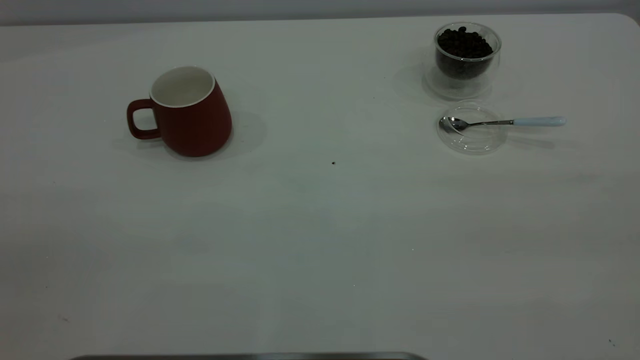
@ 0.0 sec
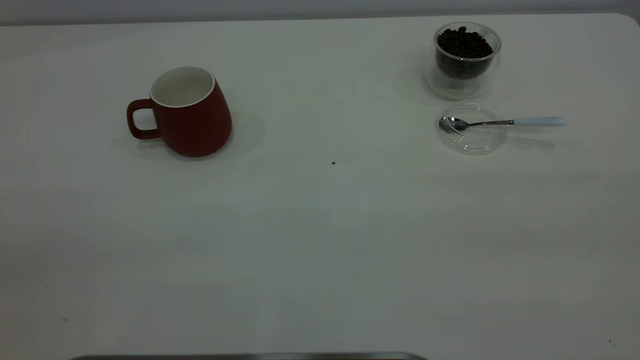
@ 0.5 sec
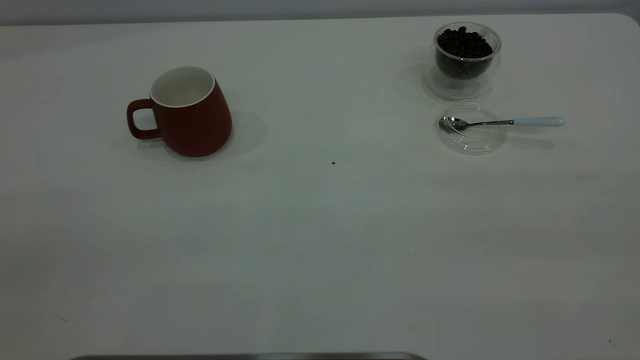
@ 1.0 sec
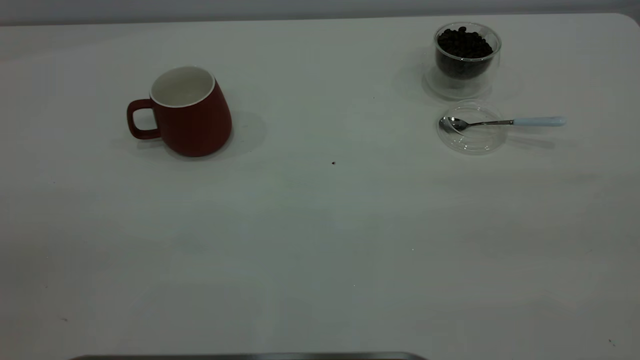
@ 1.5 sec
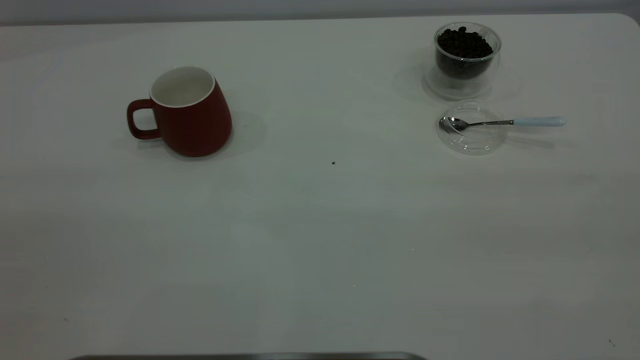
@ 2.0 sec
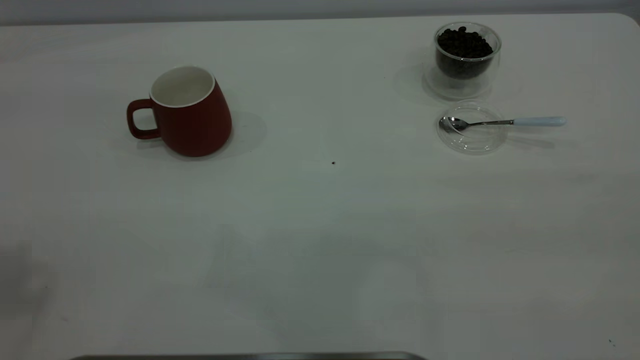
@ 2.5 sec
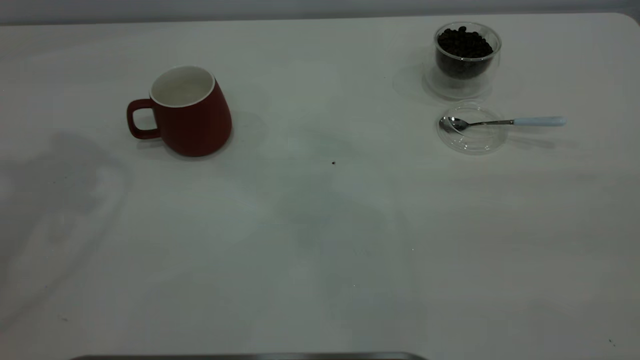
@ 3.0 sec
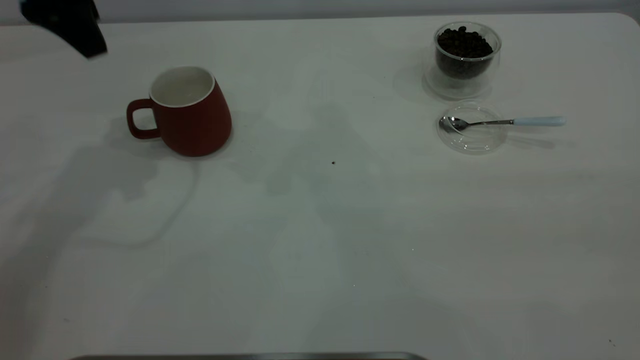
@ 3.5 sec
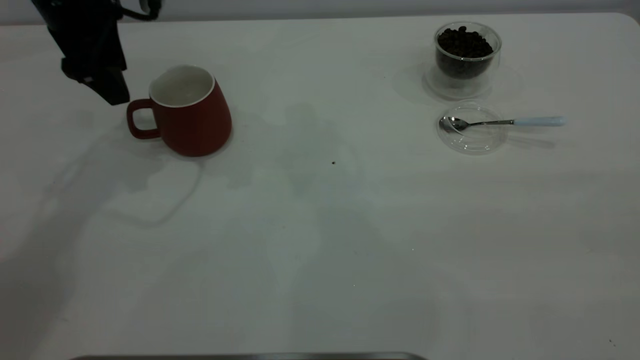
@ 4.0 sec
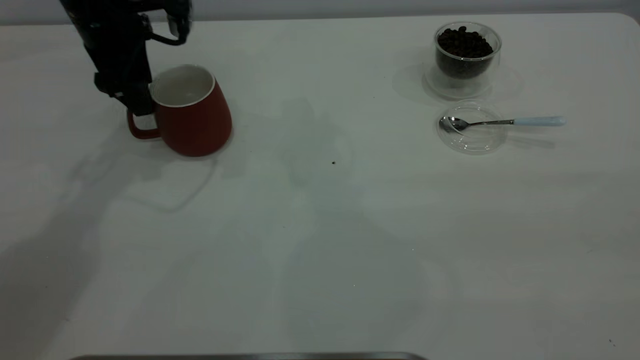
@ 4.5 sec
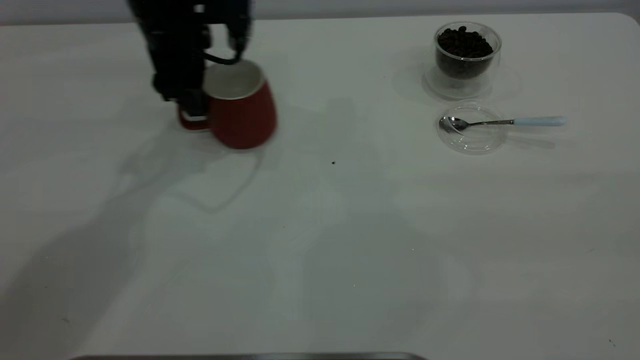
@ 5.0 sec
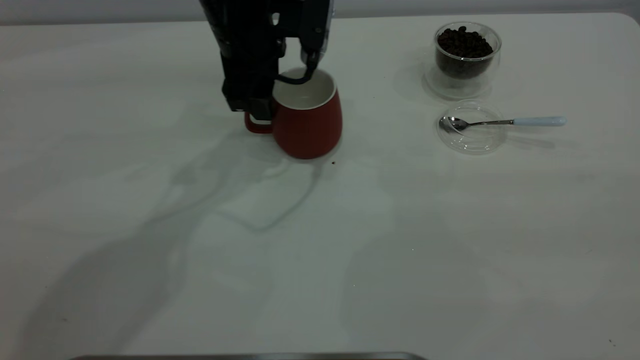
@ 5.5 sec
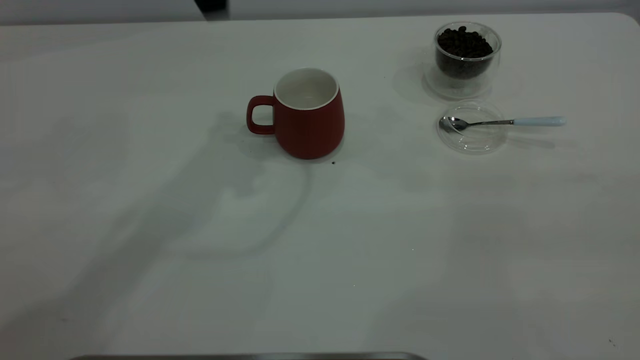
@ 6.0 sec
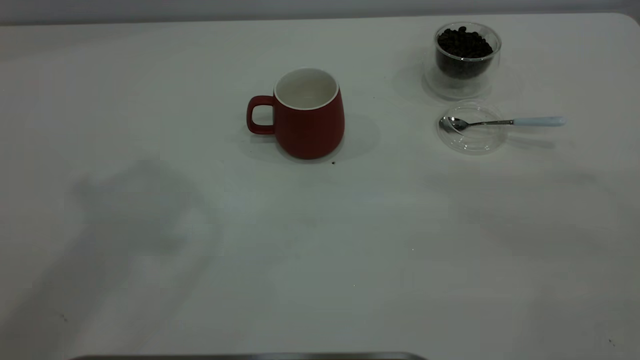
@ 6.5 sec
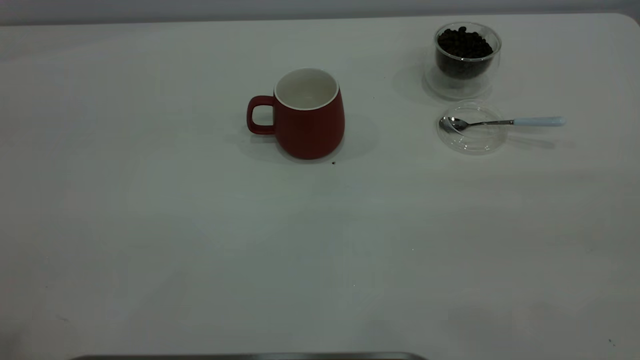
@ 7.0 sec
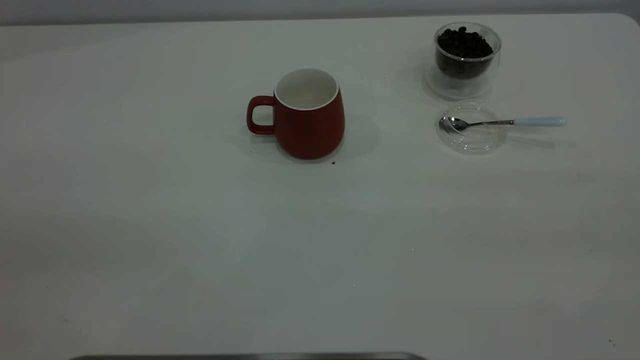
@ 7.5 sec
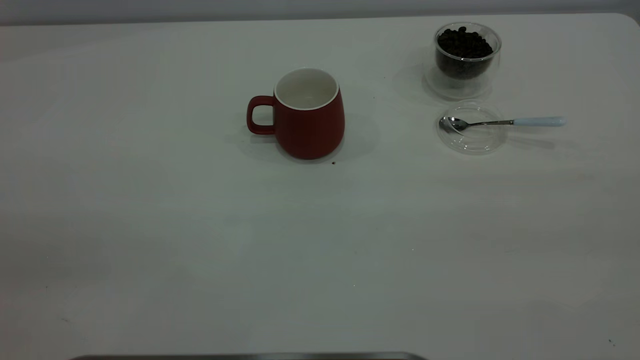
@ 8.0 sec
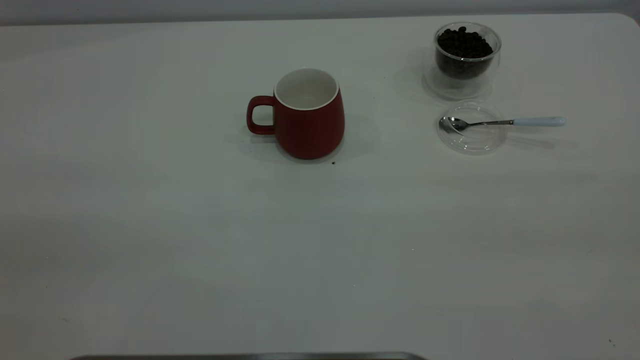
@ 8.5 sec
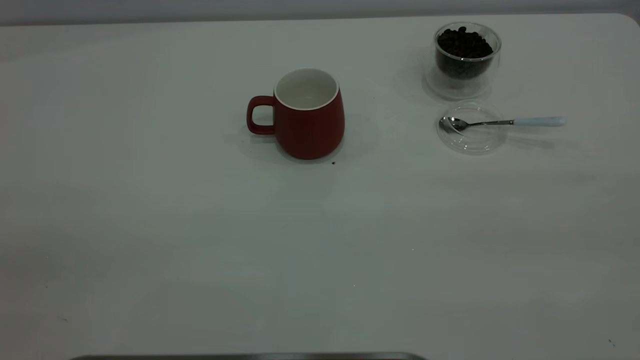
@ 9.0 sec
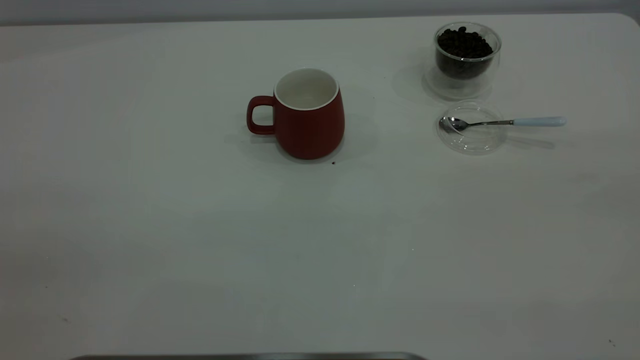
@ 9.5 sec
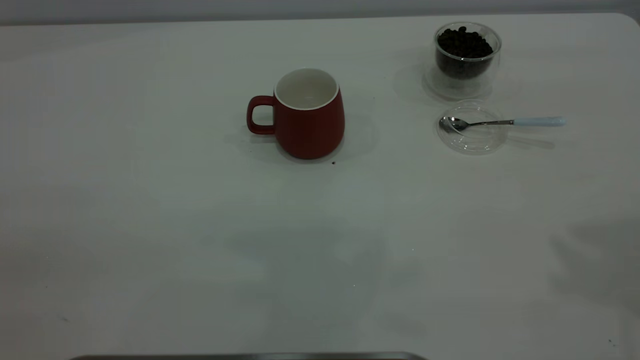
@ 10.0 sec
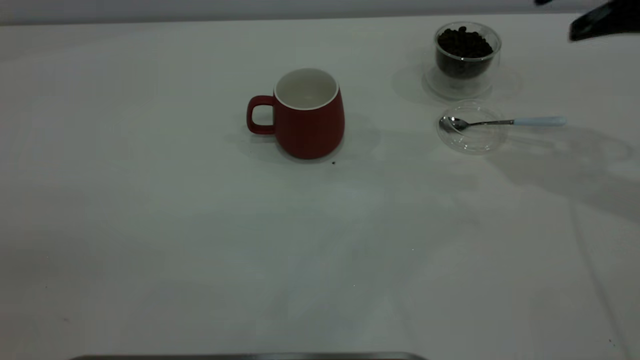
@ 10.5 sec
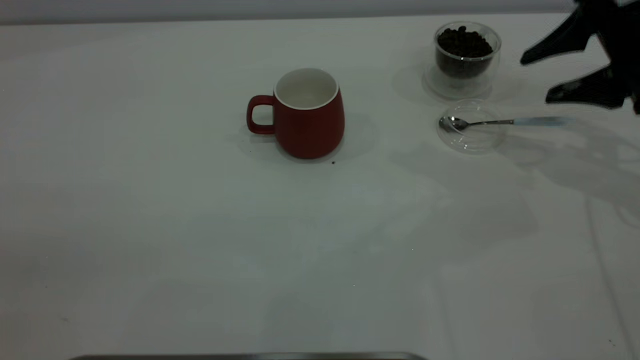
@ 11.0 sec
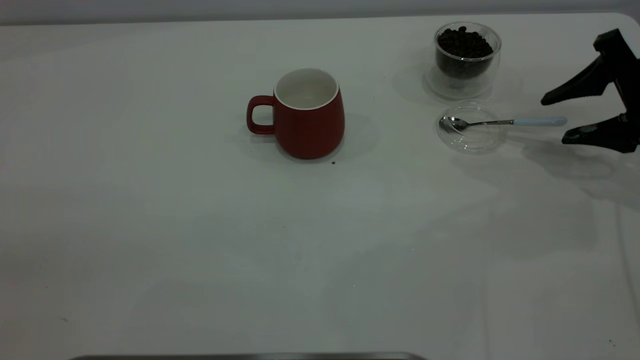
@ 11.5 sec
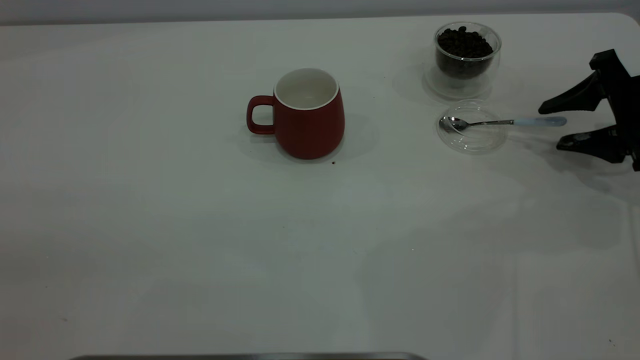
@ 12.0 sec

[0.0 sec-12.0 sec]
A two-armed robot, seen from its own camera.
Task of the whole recording: the left gripper place the red cup in the center of the table, the right gripper take the blue spoon from the cup lid and scoop out the coffee beans from the coffee cup and put them into the red cup, the right gripper put the spoon back into the cup lid.
Step, 0.0 sec to 5.5 sec: Move the cup to the center of view.
2.0 sec to 4.0 sec: The left gripper moves forward and downward, about 50 cm.
4.0 sec to 6.0 sec: The left gripper shifts some 20 cm upward and to the right.
10.0 sec to 12.0 sec: The right gripper heads downward and forward, covering roughly 35 cm.

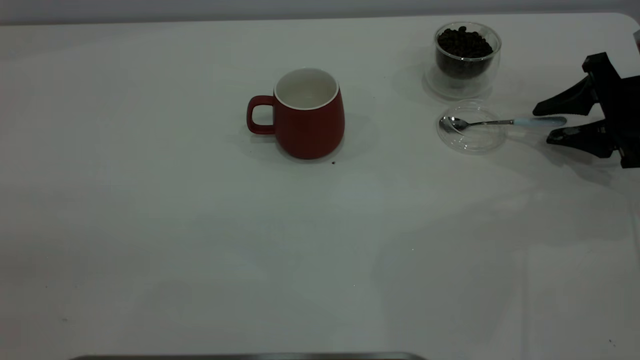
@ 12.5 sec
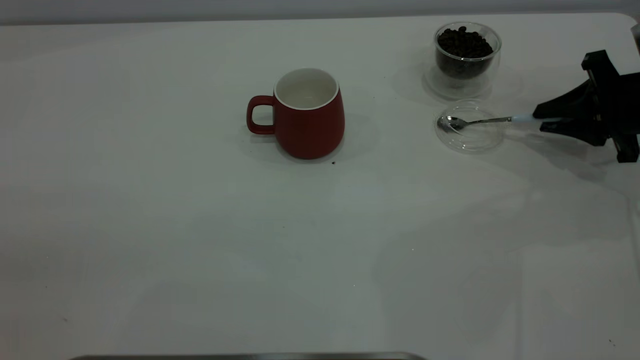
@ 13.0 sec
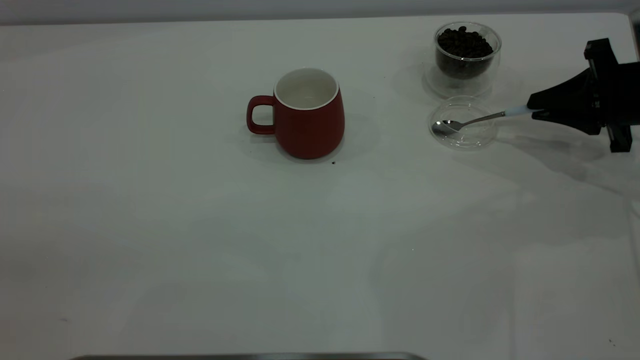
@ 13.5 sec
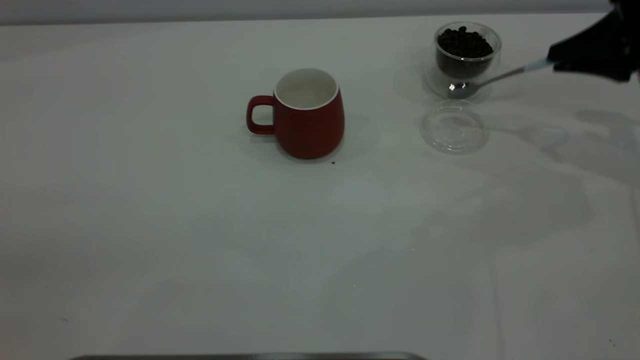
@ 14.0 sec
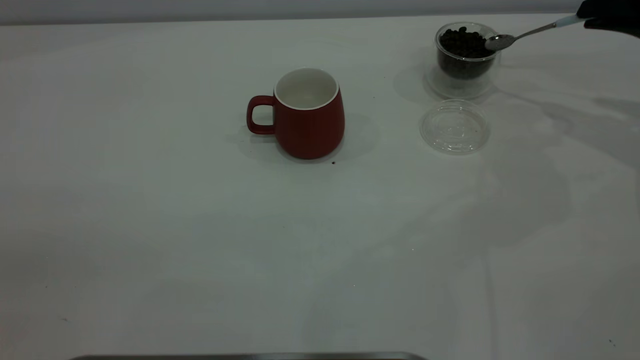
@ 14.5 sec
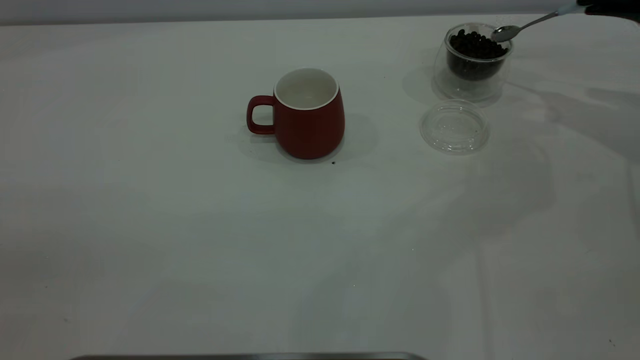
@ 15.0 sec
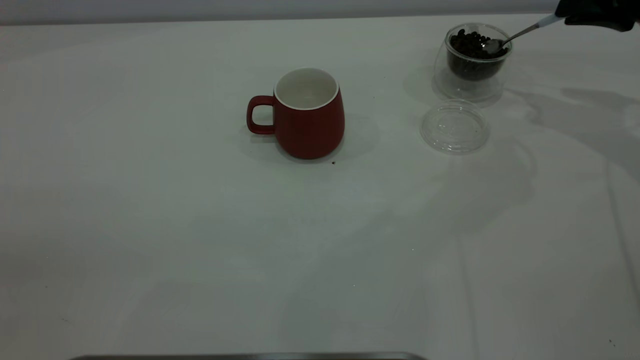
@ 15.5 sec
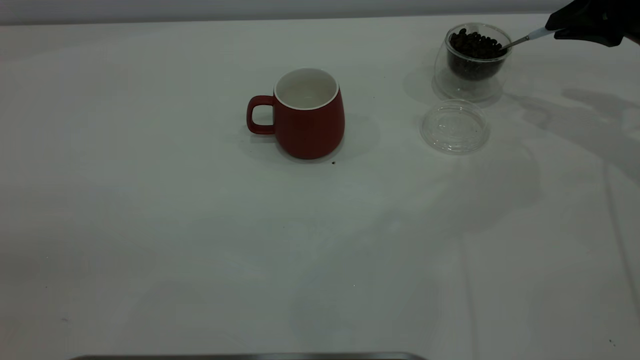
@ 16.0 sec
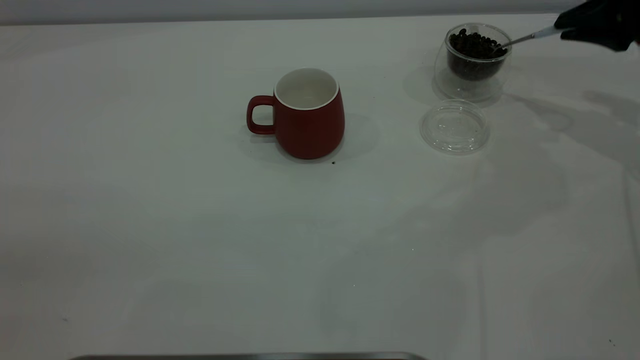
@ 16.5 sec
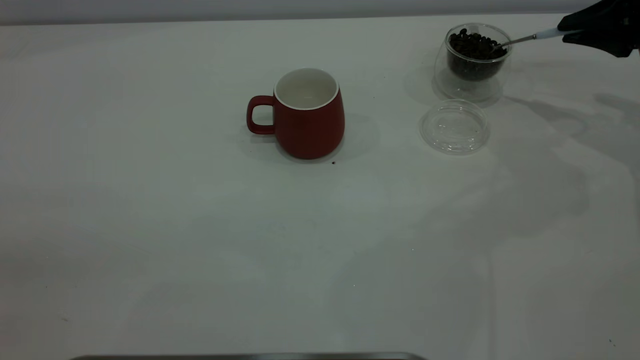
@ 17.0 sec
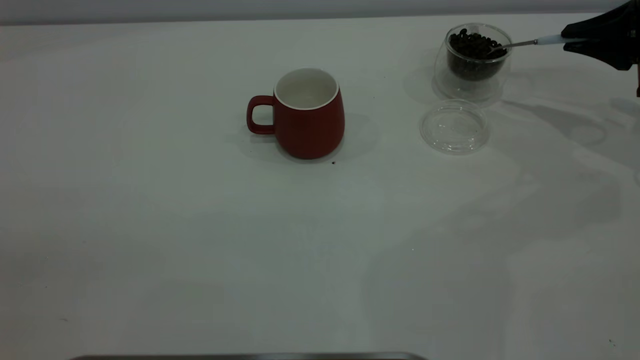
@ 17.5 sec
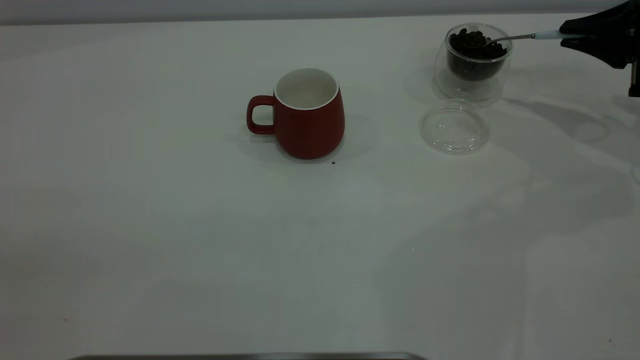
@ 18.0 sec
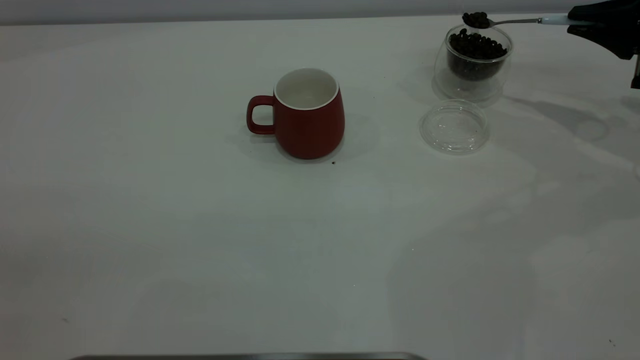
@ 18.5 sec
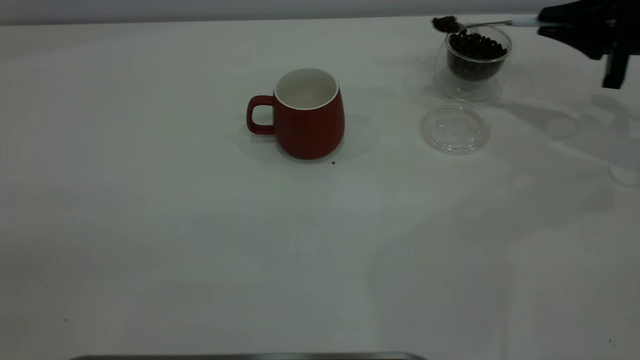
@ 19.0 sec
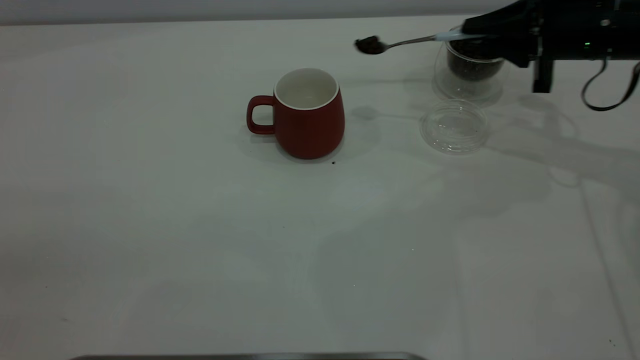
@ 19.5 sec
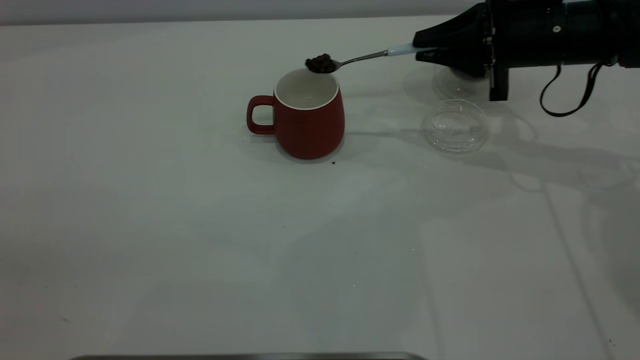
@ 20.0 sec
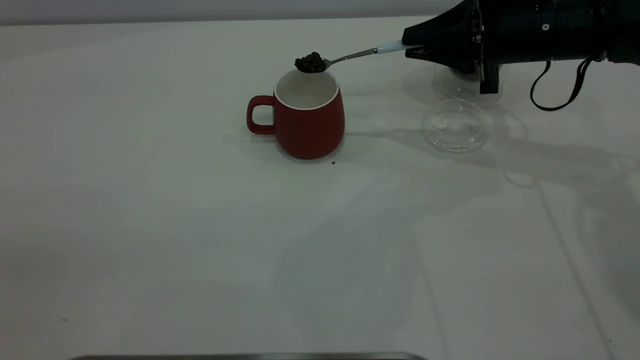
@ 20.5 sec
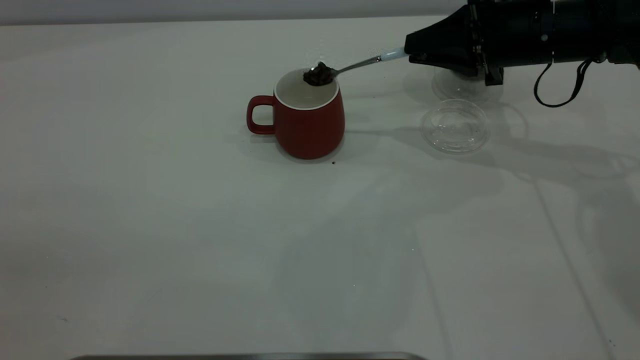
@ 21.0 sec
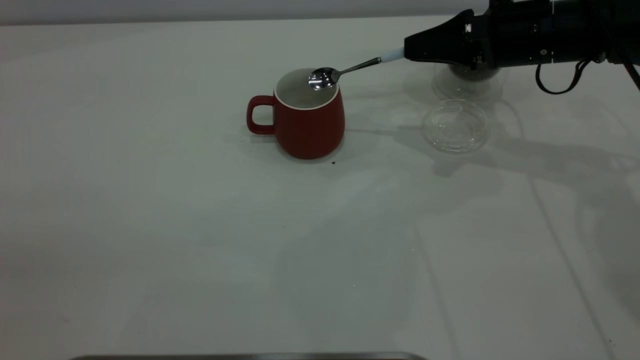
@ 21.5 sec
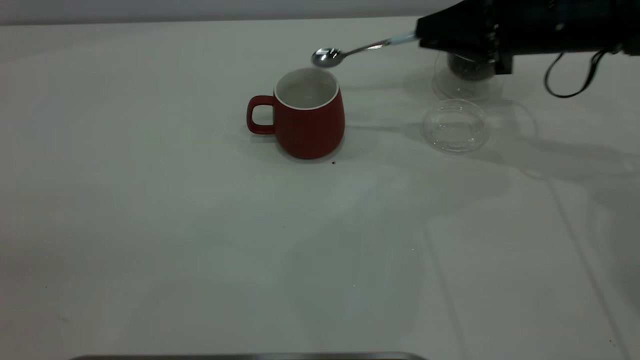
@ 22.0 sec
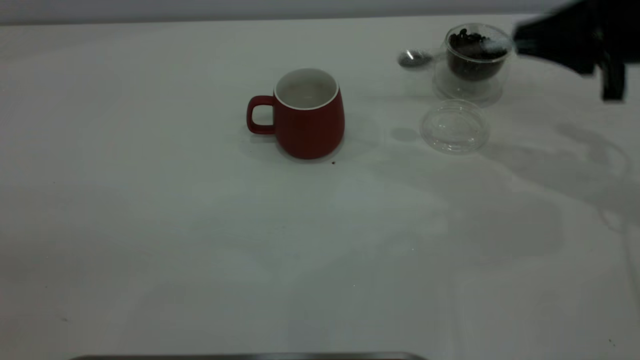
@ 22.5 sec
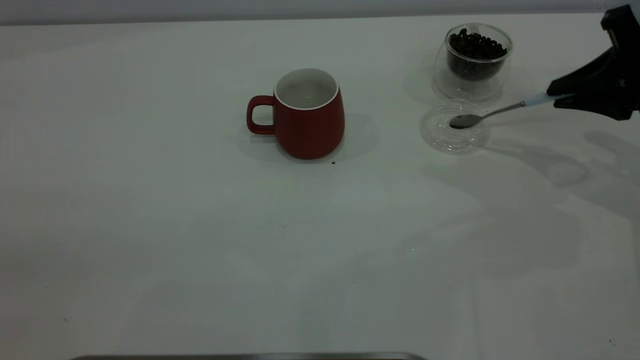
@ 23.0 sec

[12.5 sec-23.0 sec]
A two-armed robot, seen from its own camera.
Task of the whole recording: the left gripper place the red cup in the center of the table, the right gripper take the blue spoon from the cup lid and scoop out the coffee beans from the coffee cup and put them into the red cup, the right gripper put the spoon back into the cup lid.
Step, 14.0 sec to 21.5 sec: Scoop a spoonful of beans into the cup.
12.5 sec to 14.5 sec: The right gripper travels upward by about 10 cm, and closes its fingers.
14.5 sec to 16.5 sec: There are only small adjustments of the grippers.
19.0 sec to 21.0 sec: The right gripper travels to the left by some 15 cm.
21.0 sec to 23.0 sec: The right gripper shifts roughly 15 cm to the right and backward.
